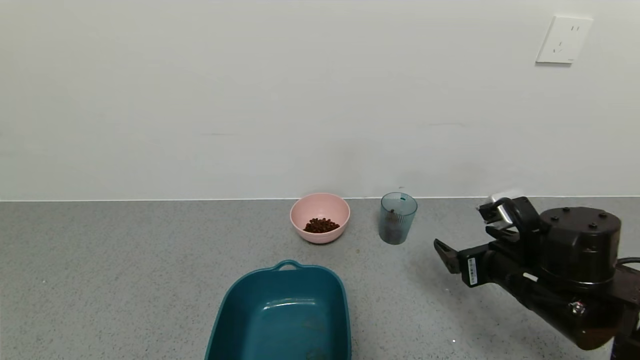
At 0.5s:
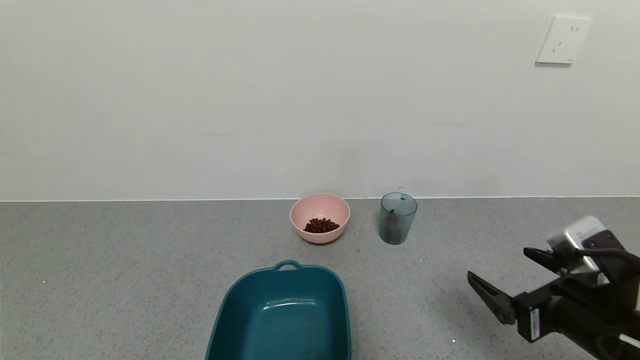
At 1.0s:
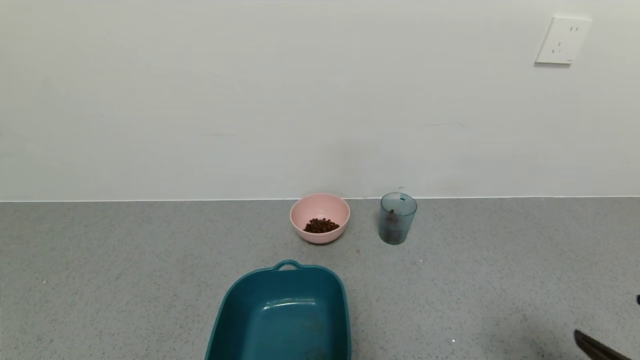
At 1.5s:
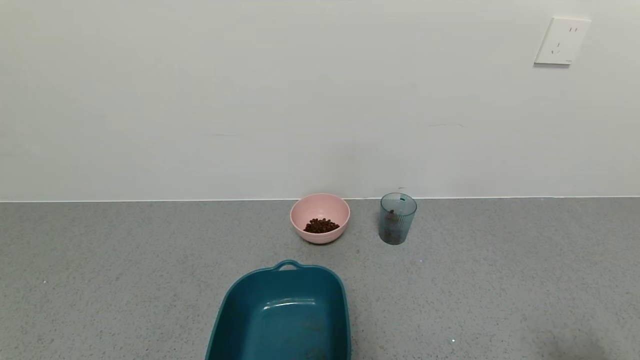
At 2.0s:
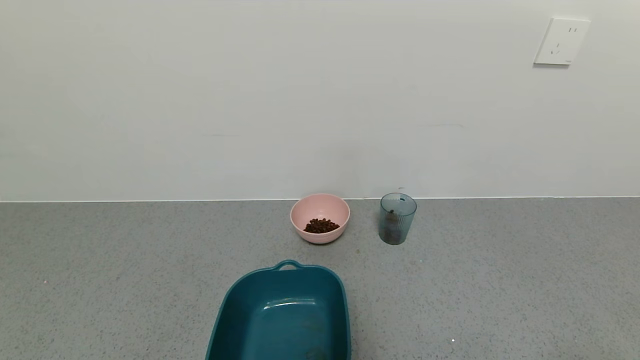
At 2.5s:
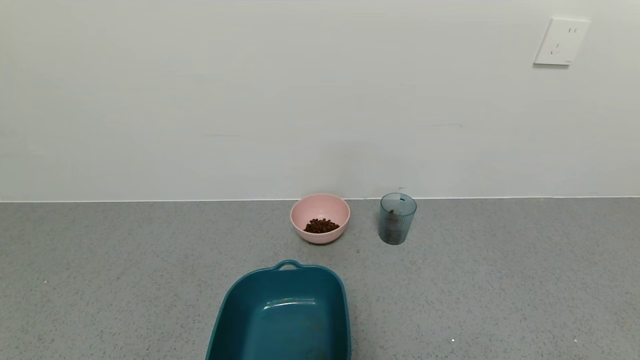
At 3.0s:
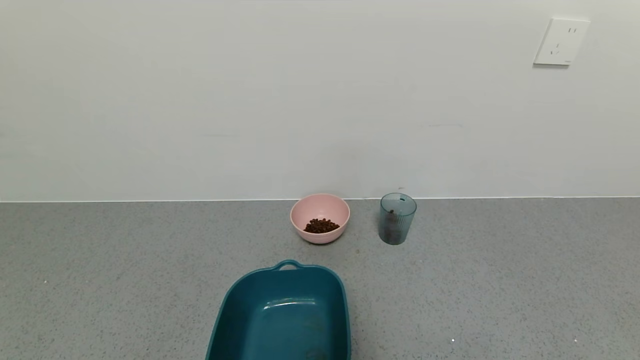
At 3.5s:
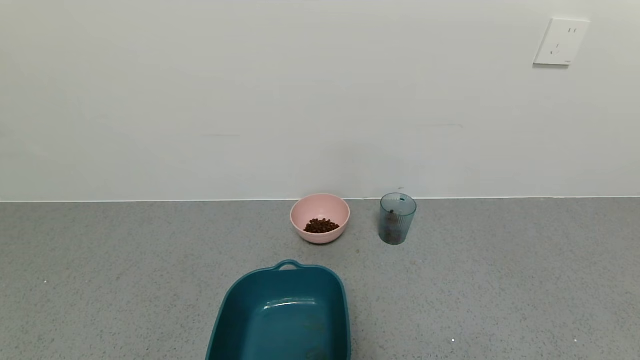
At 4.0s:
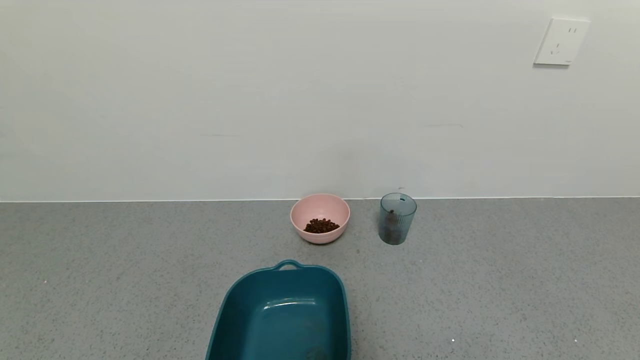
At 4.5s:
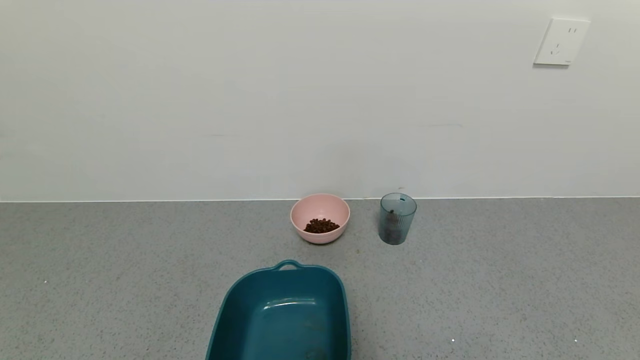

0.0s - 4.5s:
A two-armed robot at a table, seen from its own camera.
Task of the whole recording: use a gripper to pick up the cup and pour the solid into a bowl or tray.
0.0s - 2.0s: The right gripper heads backward and to the right, covering some 30 cm.
